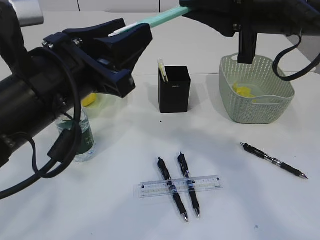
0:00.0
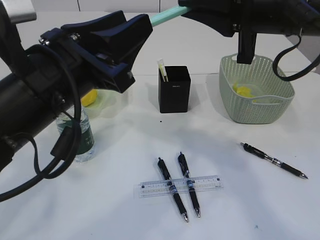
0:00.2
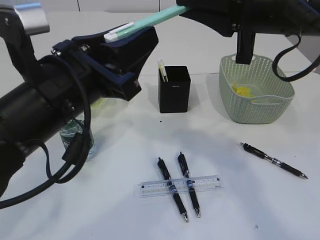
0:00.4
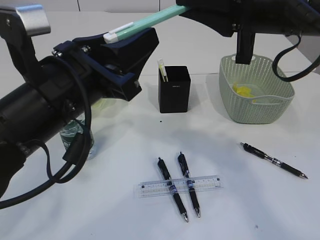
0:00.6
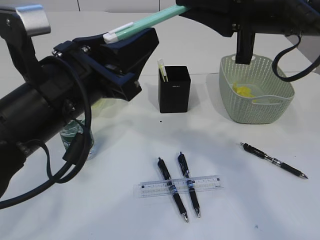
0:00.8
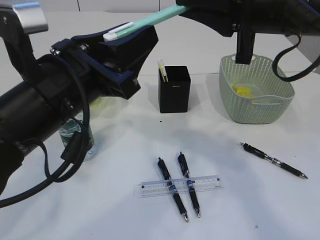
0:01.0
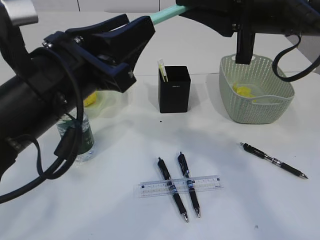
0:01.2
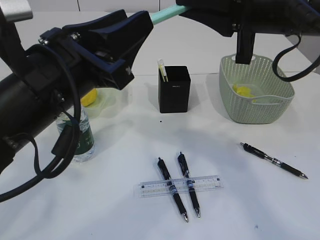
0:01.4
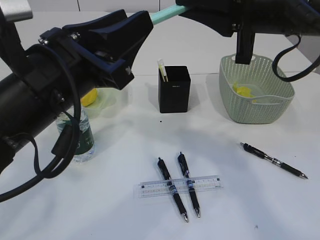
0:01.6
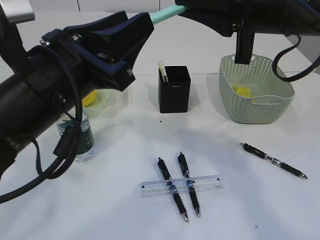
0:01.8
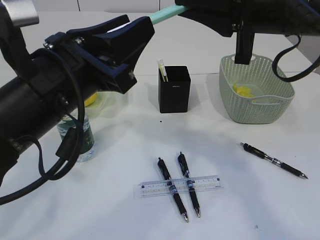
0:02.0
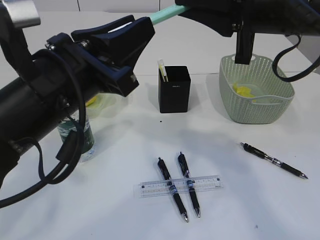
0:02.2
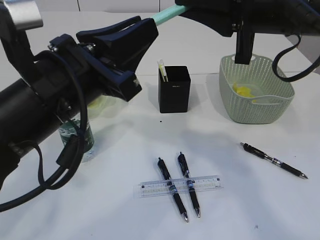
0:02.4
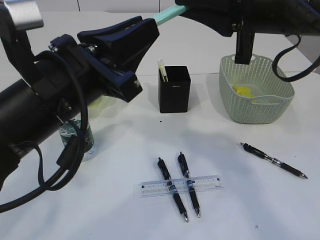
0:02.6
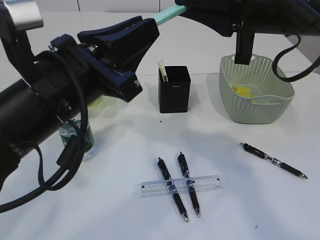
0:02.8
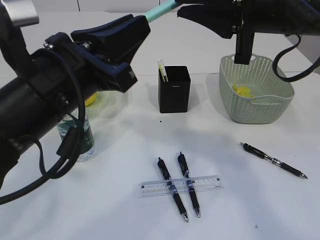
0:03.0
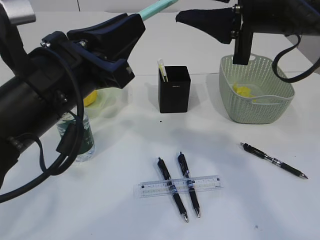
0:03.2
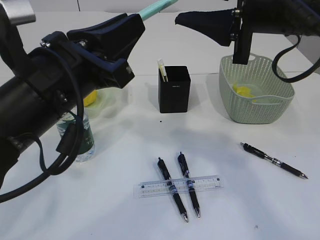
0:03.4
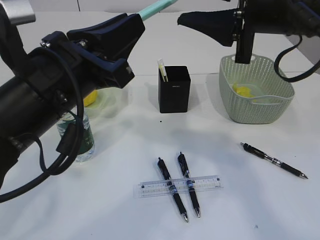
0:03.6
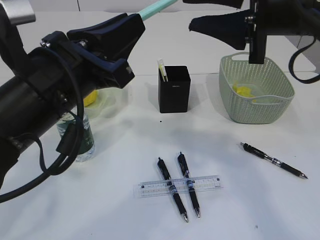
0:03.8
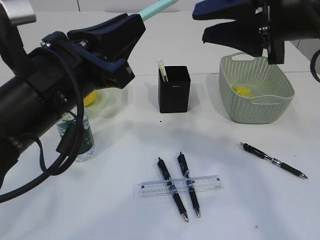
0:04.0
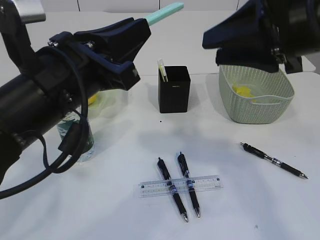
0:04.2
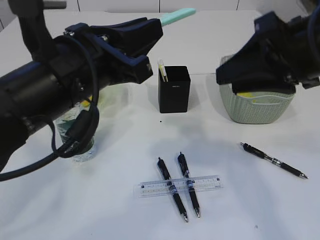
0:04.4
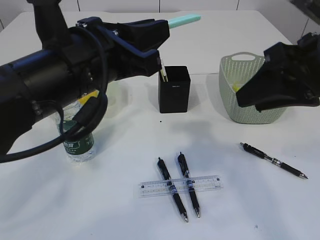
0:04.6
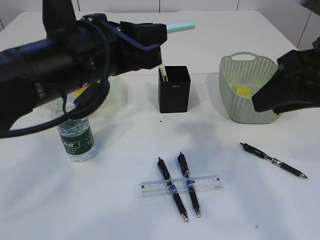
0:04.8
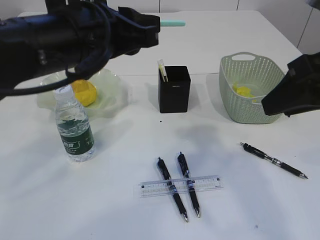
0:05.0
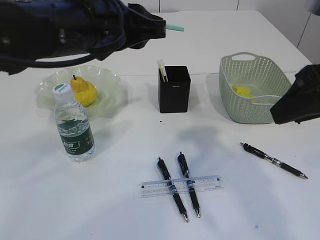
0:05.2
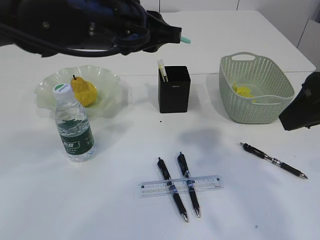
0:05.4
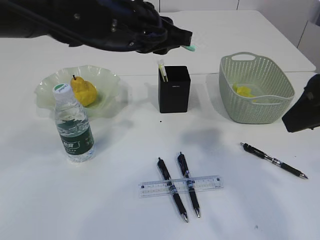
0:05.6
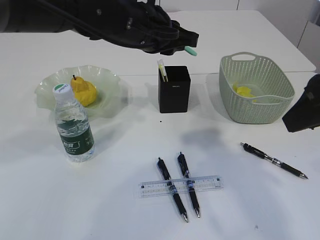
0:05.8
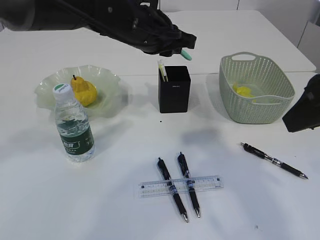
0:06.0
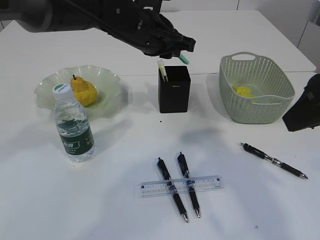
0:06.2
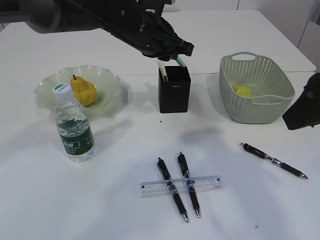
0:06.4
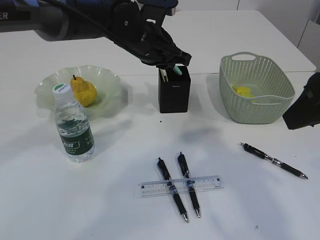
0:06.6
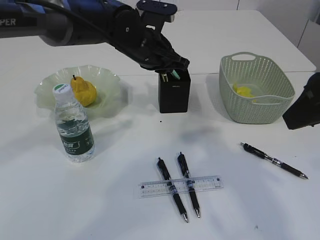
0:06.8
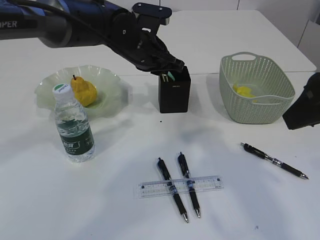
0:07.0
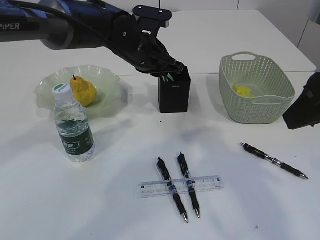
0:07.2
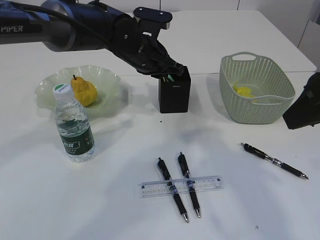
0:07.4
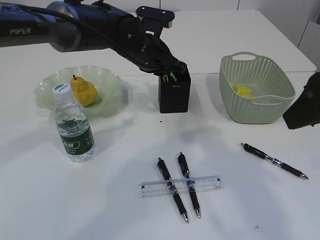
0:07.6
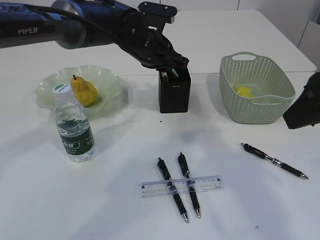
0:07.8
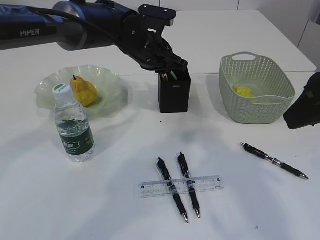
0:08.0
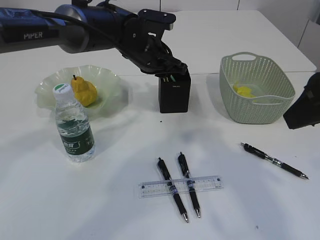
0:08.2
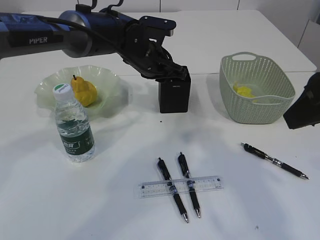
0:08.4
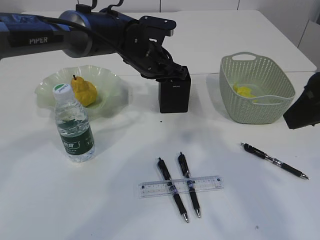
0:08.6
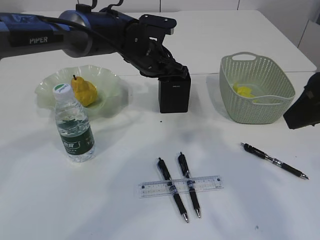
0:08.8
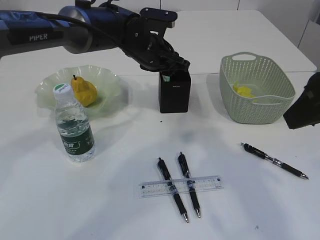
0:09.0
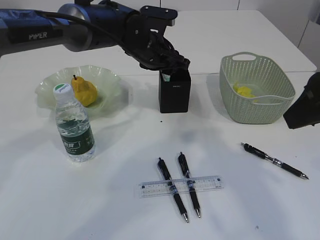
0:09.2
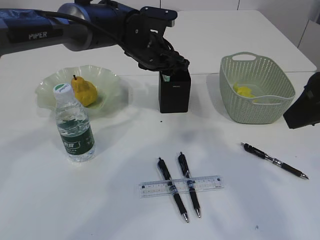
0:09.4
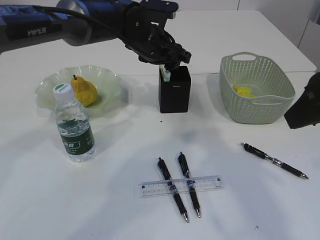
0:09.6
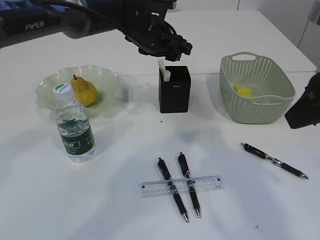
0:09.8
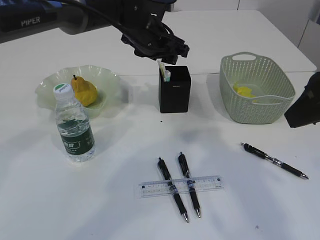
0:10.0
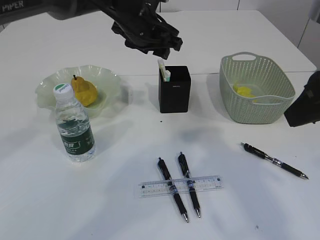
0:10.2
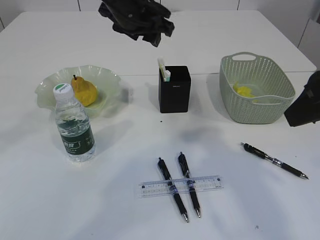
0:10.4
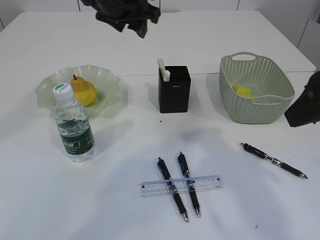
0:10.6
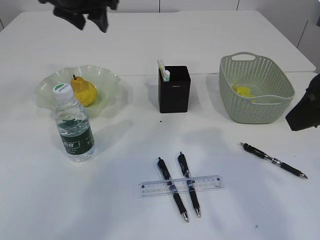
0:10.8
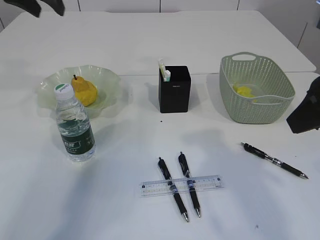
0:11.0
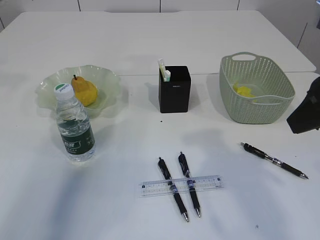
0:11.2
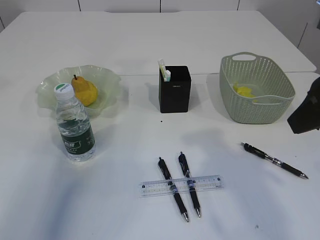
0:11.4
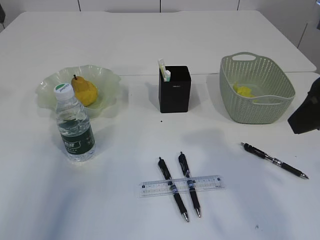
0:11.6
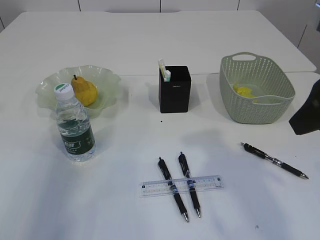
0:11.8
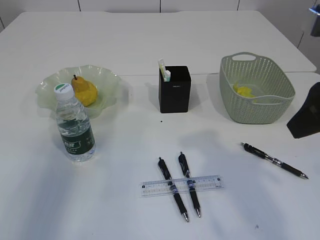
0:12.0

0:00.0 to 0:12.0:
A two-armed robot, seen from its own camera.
Step, 0:00.0 to 0:03.8: Hand over the blue knife.
Step, 0:04.0 to 0:09.8: Place the blue knife into the pen holder.
0:00.0 to 0:01.6: There are only small adjustments of the grippers.
0:01.6 to 0:03.0: The left gripper closes up.
0:03.0 to 0:04.4: The right gripper moves some 5 cm, and opens up.
0:04.4 to 0:06.0: The left gripper travels forward and to the right by about 15 cm. The right gripper changes place by roughly 5 cm.
0:06.0 to 0:07.6: The left gripper is displaced downward and forward by some 10 cm.
0:07.6 to 0:09.0: The left gripper opens its fingers.
0:09.0 to 0:10.4: The left gripper is displaced upward by some 10 cm.
0:10.4 to 0:12.0: The left gripper goes approximately 30 cm to the left and backward.

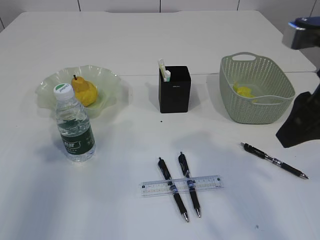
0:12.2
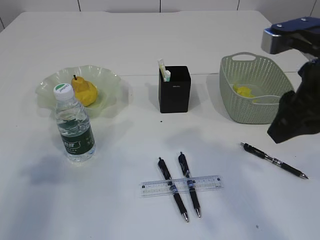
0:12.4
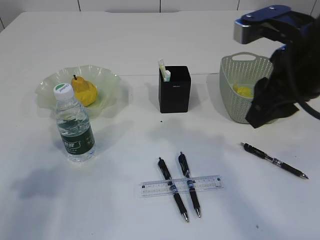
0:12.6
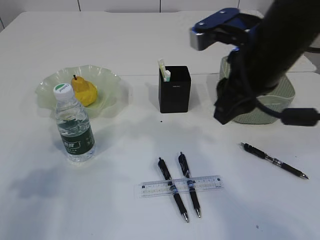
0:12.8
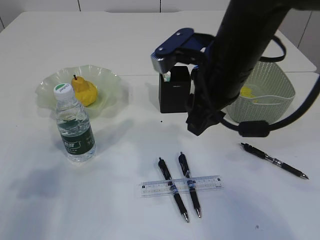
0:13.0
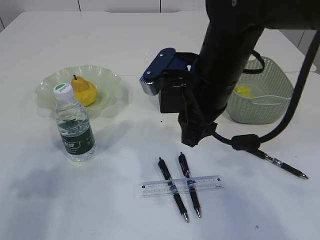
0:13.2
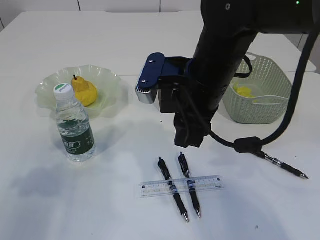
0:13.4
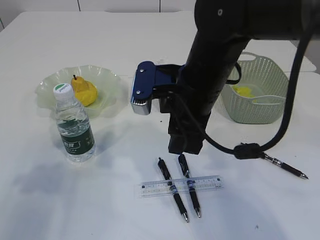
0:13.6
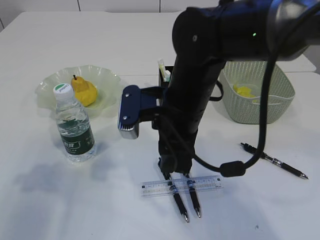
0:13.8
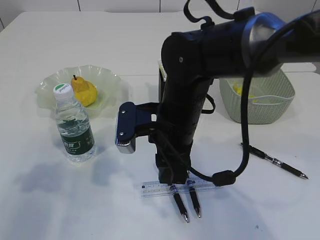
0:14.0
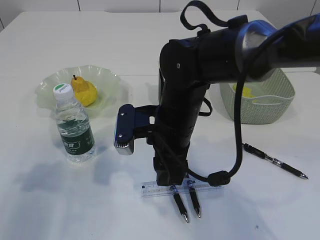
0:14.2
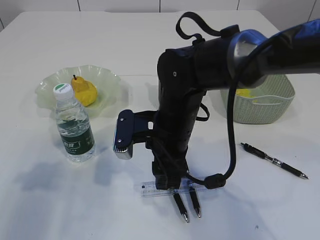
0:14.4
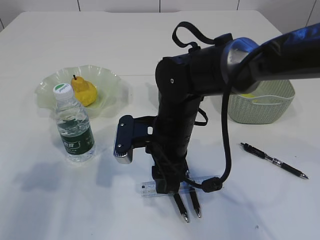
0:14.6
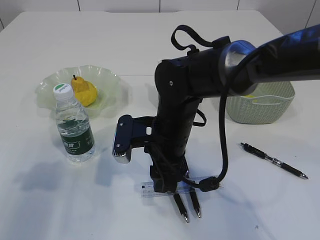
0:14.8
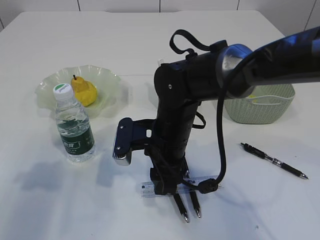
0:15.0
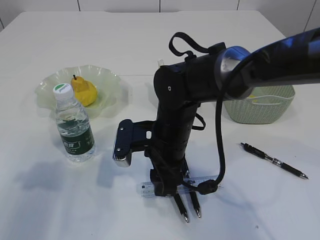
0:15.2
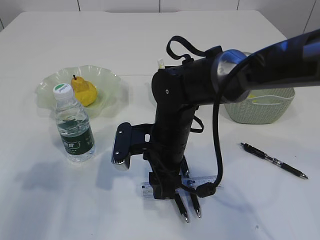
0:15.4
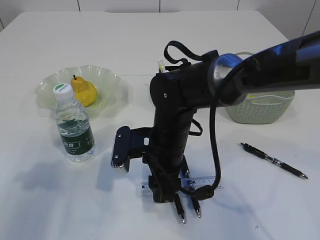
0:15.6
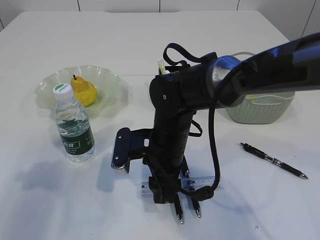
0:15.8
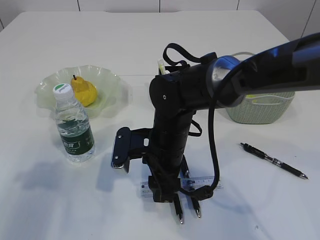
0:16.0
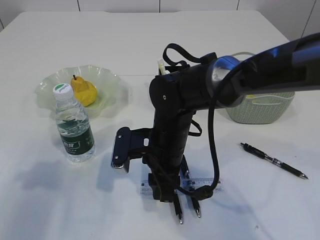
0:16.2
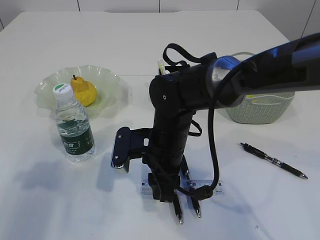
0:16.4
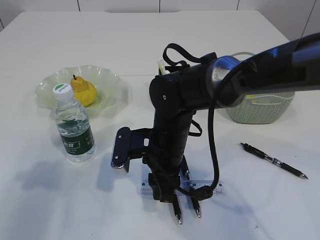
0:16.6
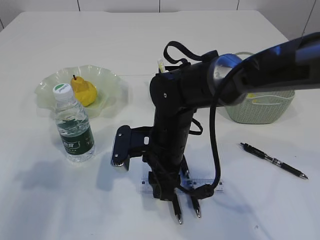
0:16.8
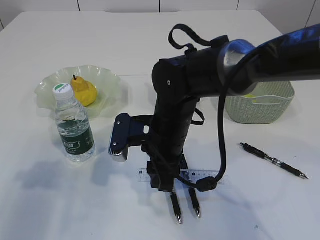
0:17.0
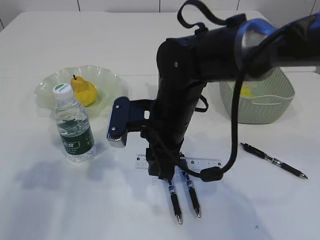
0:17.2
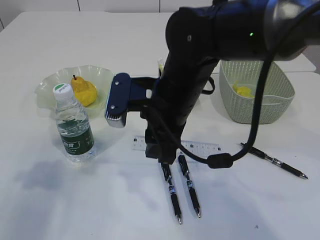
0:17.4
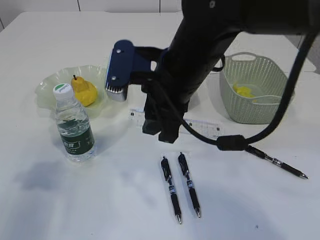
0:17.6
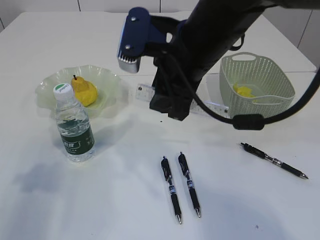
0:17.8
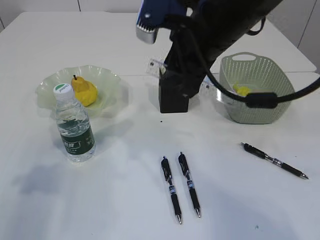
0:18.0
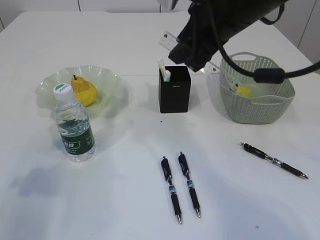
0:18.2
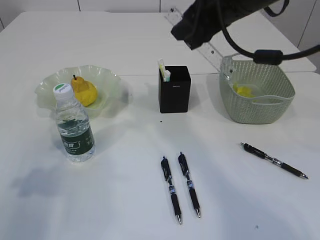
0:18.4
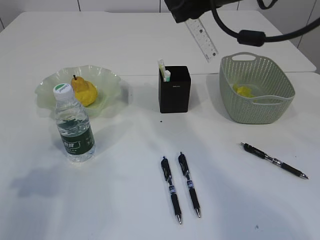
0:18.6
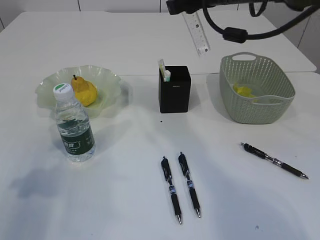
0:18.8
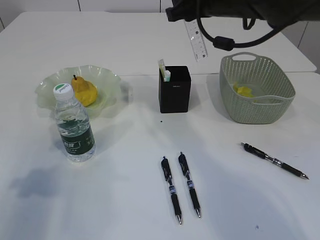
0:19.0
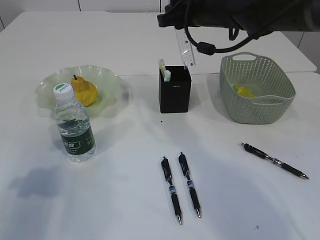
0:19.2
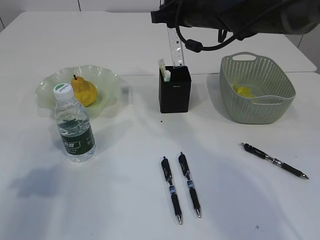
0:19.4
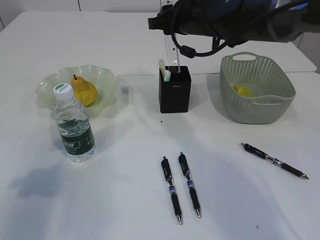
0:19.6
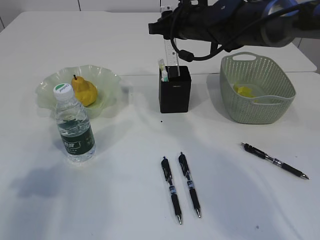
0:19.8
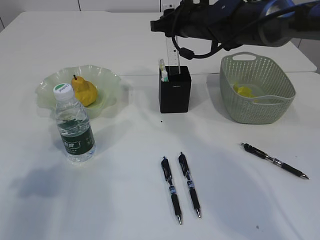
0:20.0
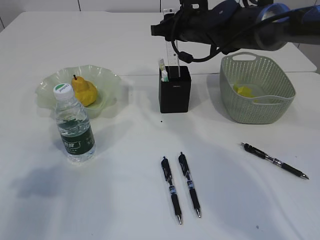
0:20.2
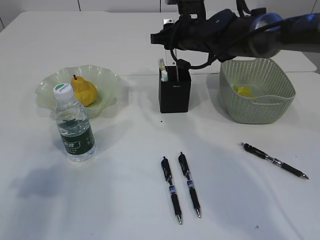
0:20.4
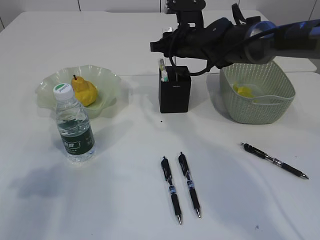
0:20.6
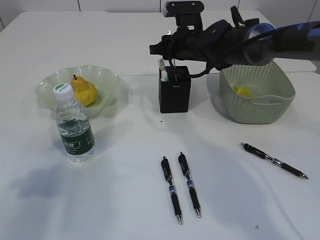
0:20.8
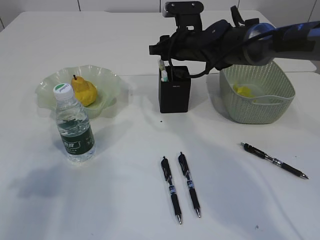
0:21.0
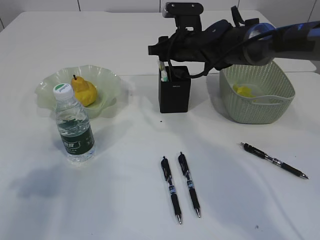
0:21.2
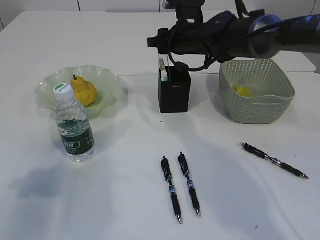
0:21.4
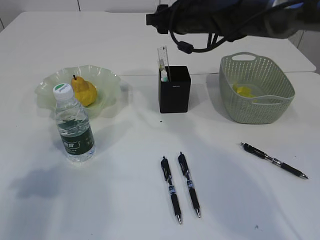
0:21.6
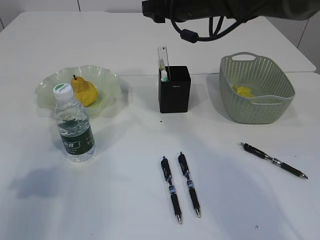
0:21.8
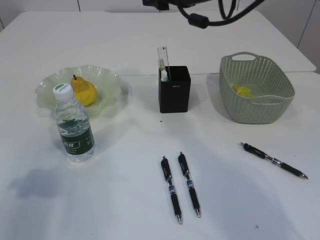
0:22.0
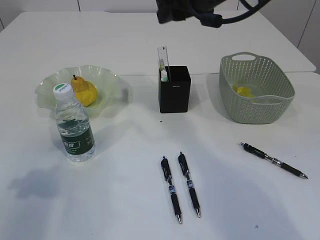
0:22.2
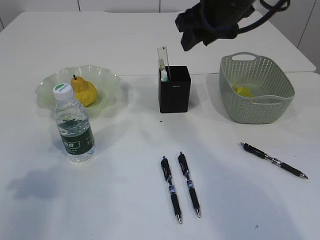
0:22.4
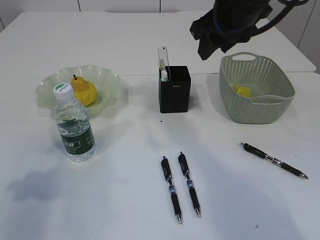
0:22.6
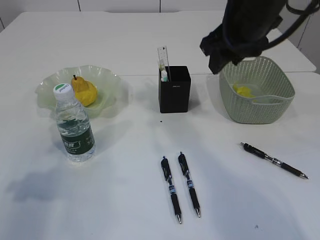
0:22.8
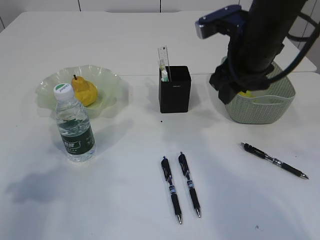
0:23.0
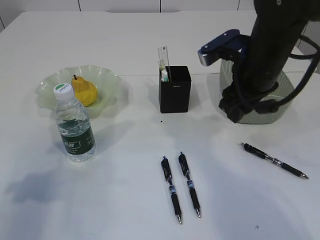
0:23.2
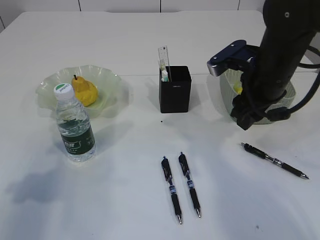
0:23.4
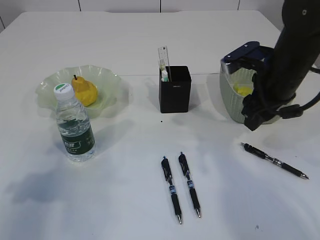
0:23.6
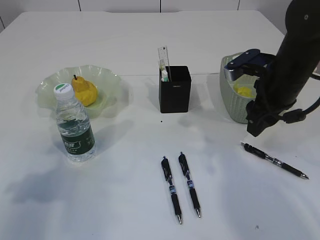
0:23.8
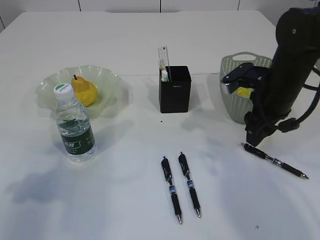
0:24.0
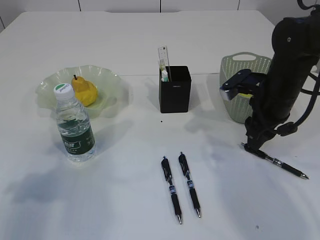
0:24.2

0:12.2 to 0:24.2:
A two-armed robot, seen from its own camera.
Step, 0:12.2 to 0:17.2: pick up the ruler.
Step, 0:17.4 to 0:21.4: Place the ruler into the pen holder.
0:12.2 to 0:13.8: The left gripper is displaced downward by about 5 cm; the right gripper travels to the left, downward and forward by roughly 20 cm.
0:13.8 to 0:15.2: The right gripper is displaced downward by roughly 10 cm.
0:15.2 to 0:16.6: The grippers stay close to where they were, moving slightly.
0:16.6 to 0:18.2: The right gripper moves upward and to the right, about 20 cm.
0:18.2 to 0:19.8: The right gripper heads forward and downward, covering approximately 15 cm.
0:19.8 to 0:21.2: The right gripper is displaced downward by roughly 5 cm.
0:21.2 to 0:22.6: The right gripper travels upward and backward by some 20 cm.
0:22.6 to 0:24.2: The right gripper travels downward and to the right by some 15 cm.
